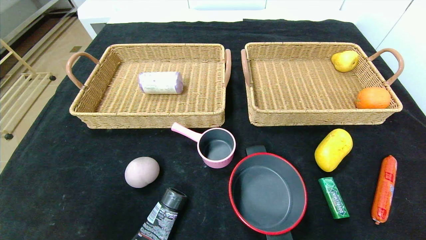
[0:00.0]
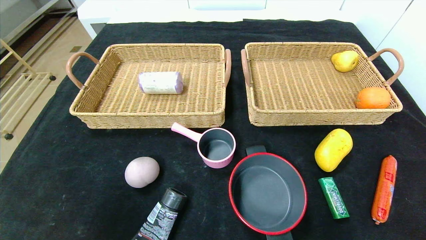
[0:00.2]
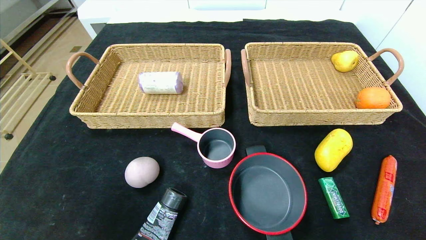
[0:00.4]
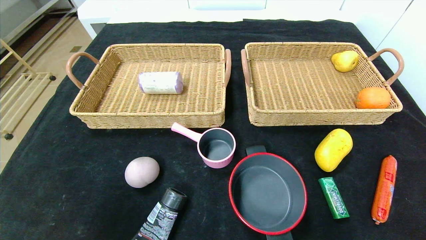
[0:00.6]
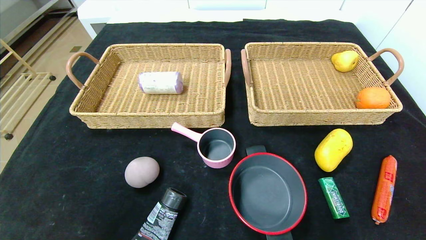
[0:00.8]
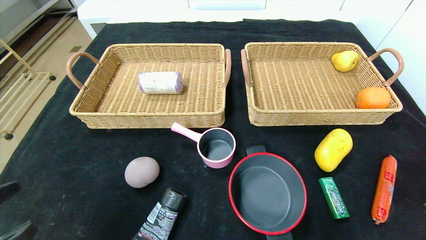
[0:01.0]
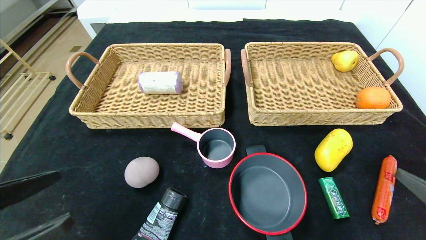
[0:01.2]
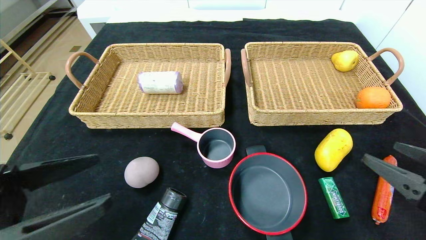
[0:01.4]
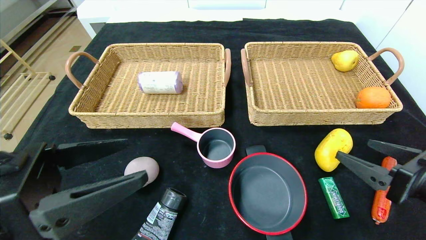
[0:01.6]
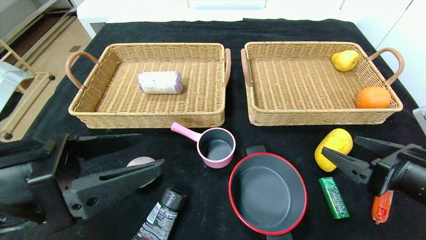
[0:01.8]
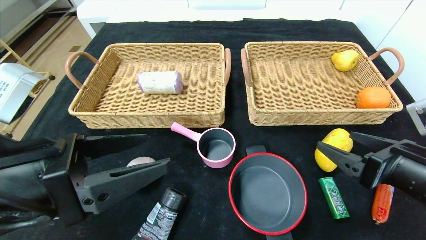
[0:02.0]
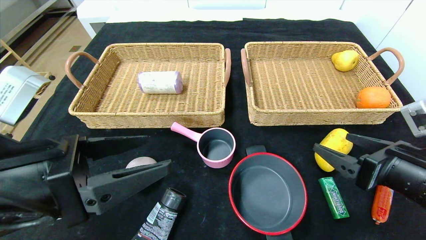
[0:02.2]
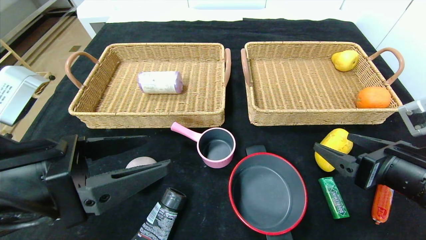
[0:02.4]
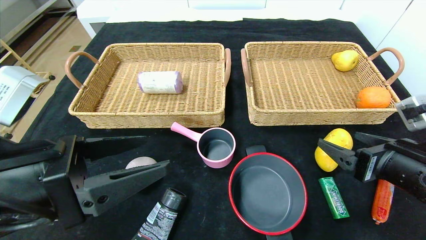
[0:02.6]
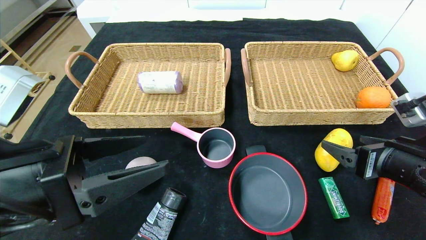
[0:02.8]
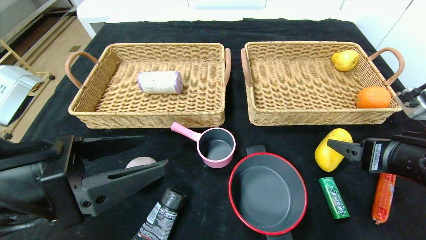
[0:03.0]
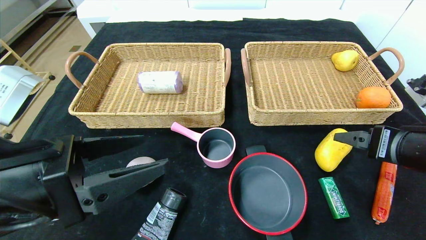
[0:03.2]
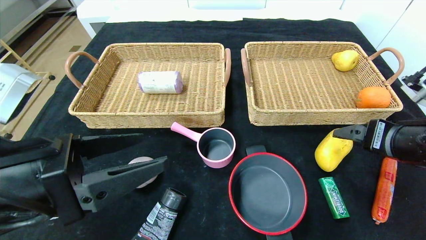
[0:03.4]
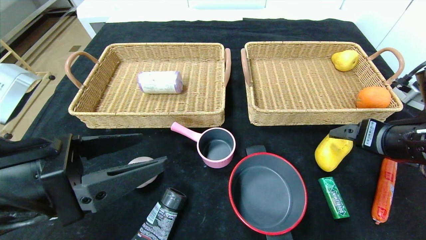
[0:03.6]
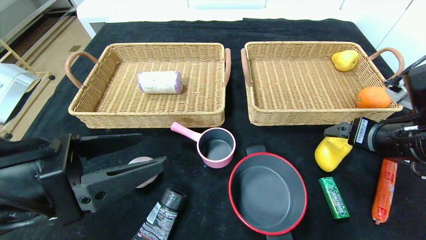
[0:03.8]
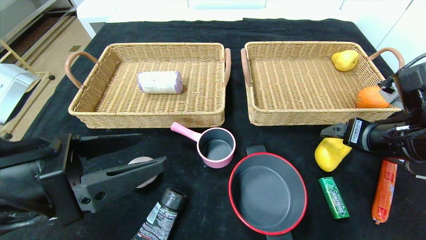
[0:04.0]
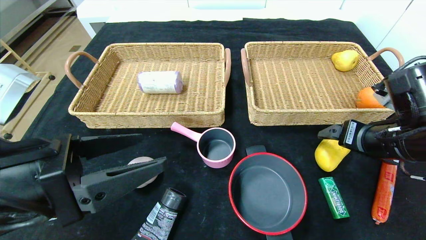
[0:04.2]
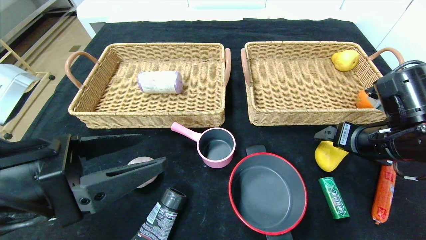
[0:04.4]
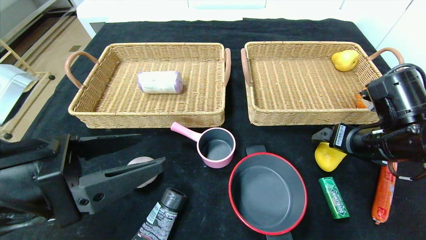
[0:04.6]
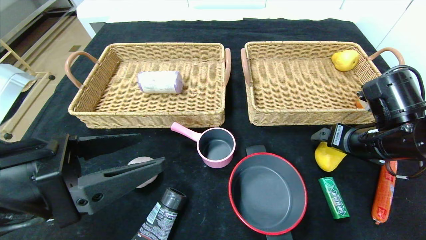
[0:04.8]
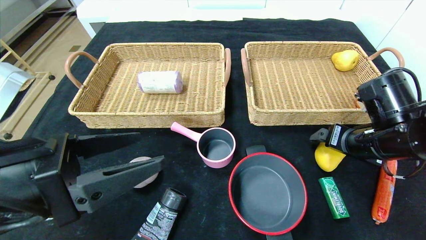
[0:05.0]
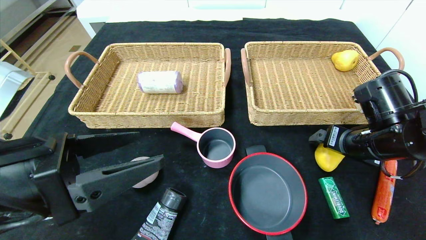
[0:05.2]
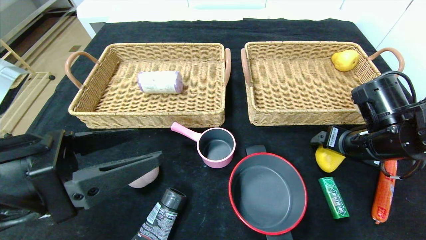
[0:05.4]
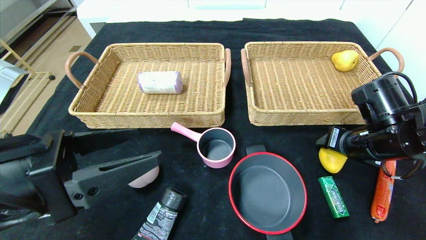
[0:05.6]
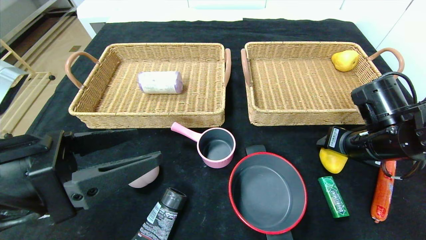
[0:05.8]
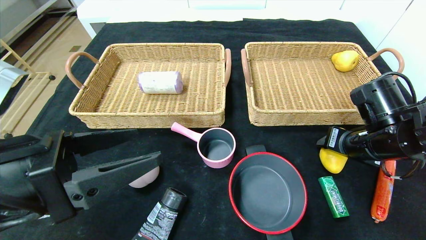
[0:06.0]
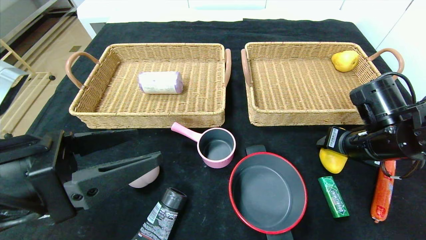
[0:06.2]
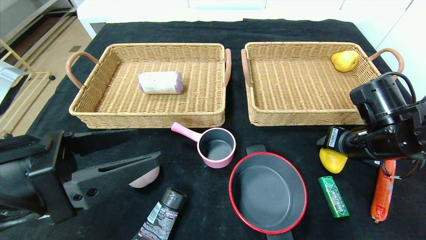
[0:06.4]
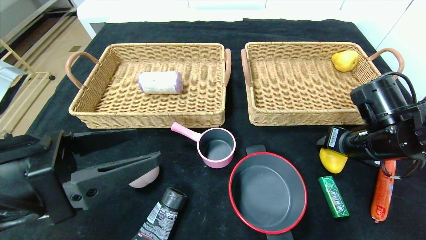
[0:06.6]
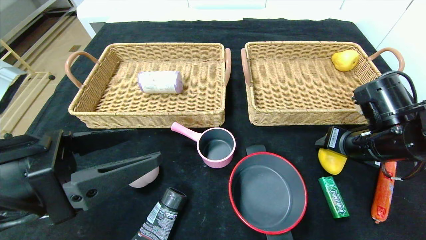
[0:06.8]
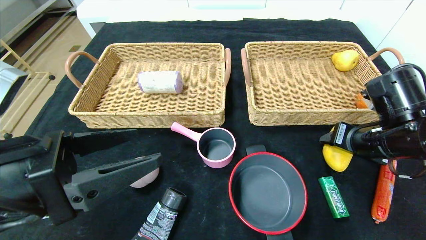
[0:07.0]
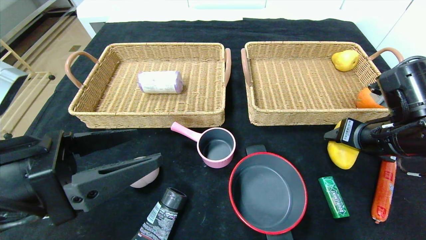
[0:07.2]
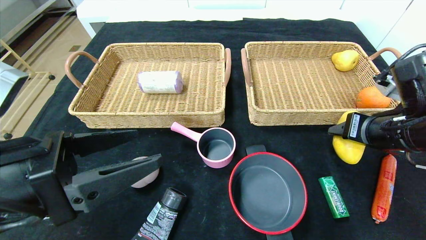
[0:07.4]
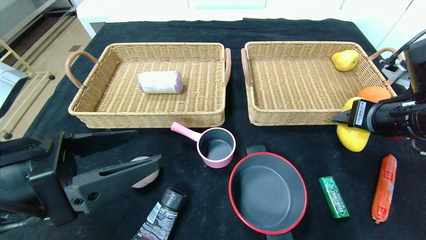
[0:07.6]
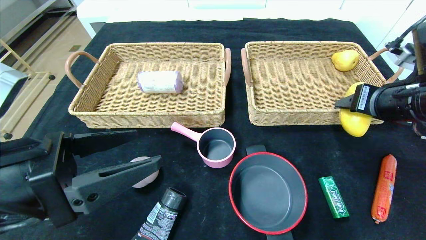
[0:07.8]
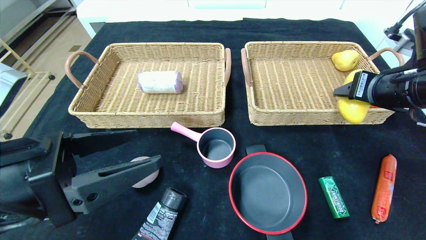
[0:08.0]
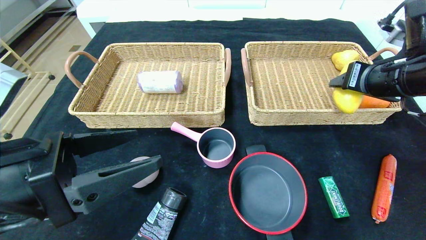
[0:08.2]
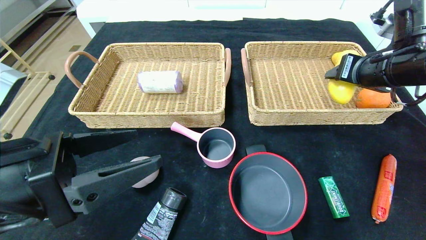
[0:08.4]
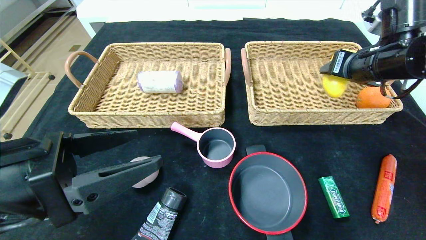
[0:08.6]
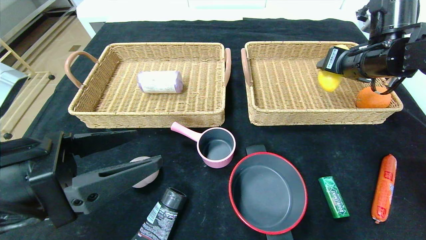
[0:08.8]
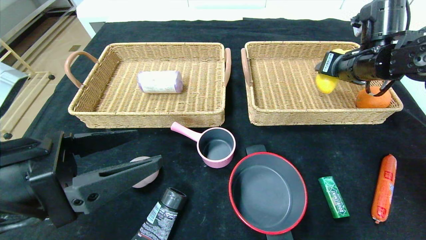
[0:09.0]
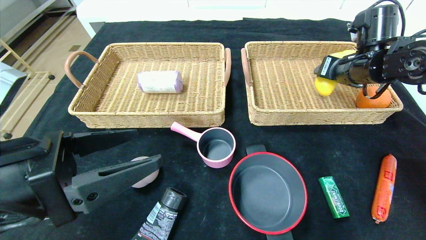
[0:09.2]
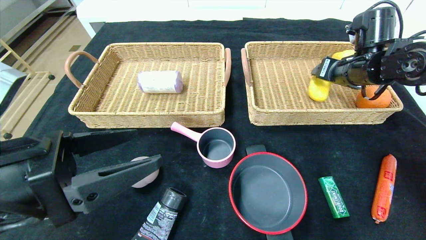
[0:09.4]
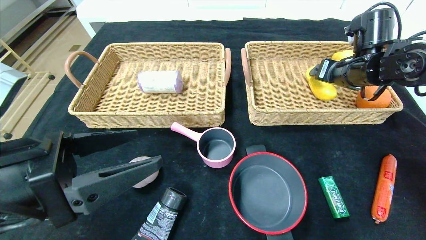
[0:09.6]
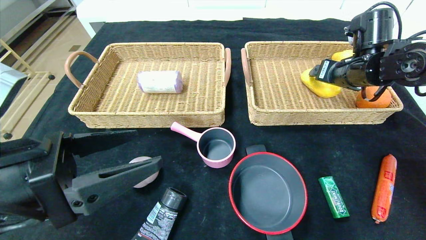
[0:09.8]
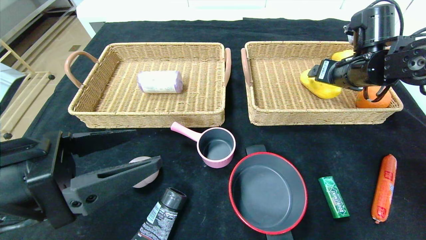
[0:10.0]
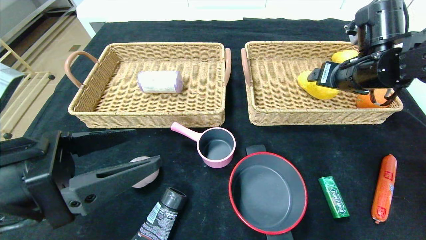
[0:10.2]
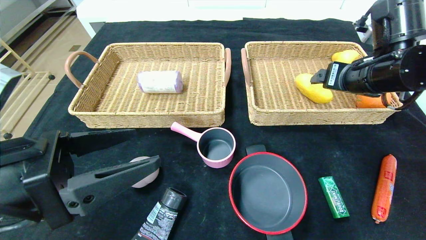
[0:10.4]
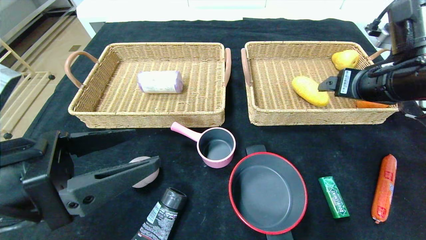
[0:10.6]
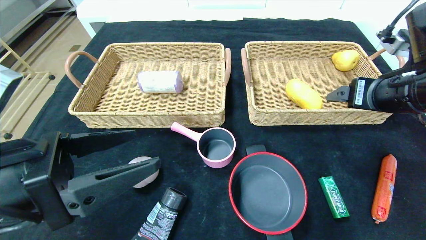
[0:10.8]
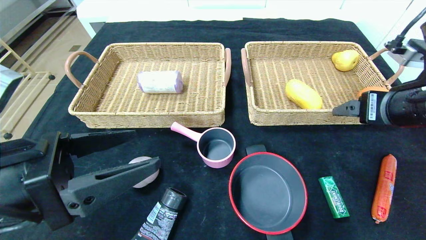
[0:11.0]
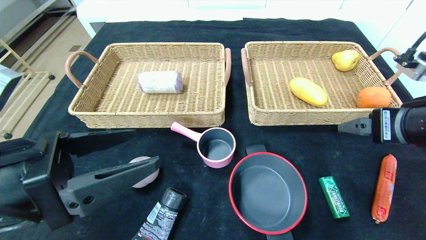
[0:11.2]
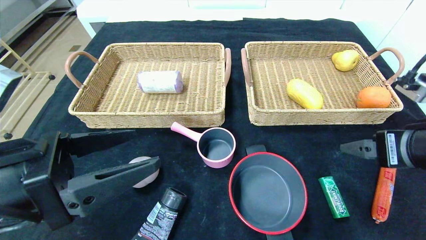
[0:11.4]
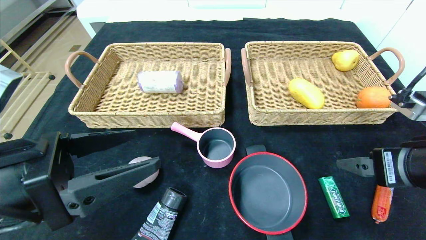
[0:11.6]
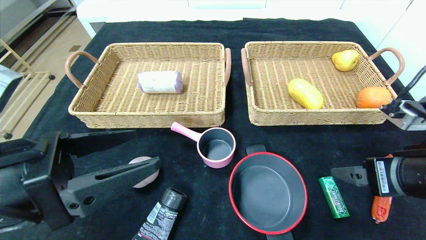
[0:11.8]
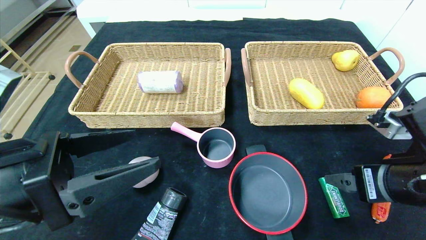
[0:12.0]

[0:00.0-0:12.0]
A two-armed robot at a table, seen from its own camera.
Step, 0:00.0 to 0:10.0: Grasp the mango and put it in the right basket.
0:00.0 to 0:01.6: The right gripper heads forward, covering about 15 cm. Meanwhile the left gripper goes some 15 cm forward, upward and to the right.
0:03.0 to 0:04.4: The right gripper travels forward by about 5 cm.
0:04.4 to 0:06.0: The right gripper closes up.
0:06.0 to 0:07.6: The right gripper goes some 5 cm upward.
0:07.6 to 0:09.0: The right gripper is displaced forward by about 15 cm.
0:09.0 to 0:10.4: The right gripper is displaced backward by about 5 cm, and opens its fingers.
0:10.4 to 0:12.0: The right gripper goes approximately 15 cm backward and downward.

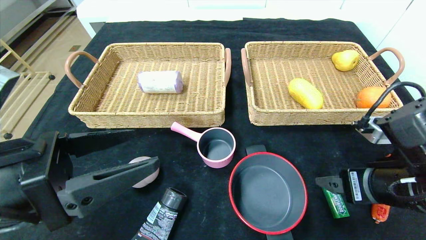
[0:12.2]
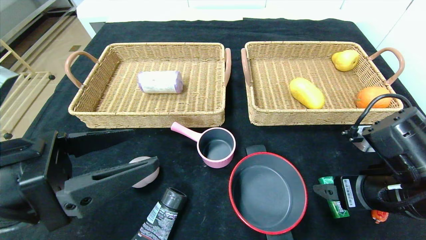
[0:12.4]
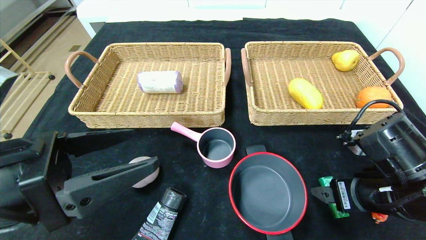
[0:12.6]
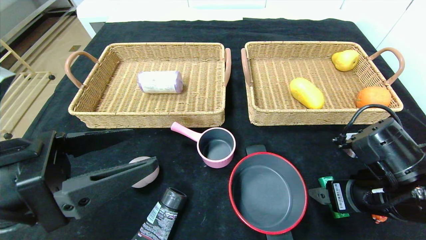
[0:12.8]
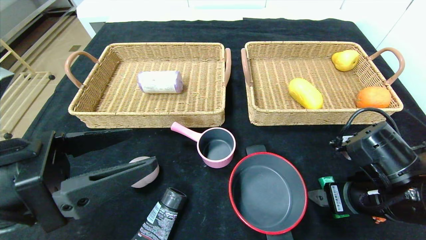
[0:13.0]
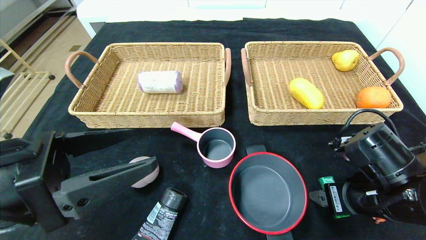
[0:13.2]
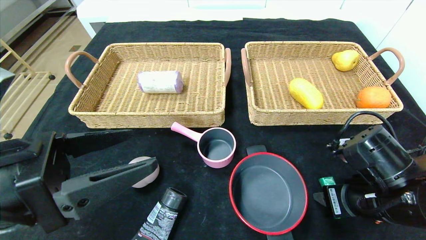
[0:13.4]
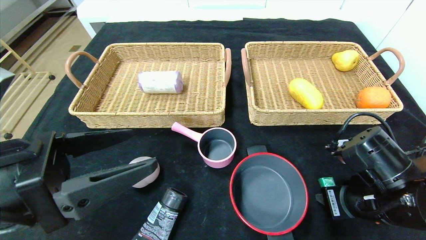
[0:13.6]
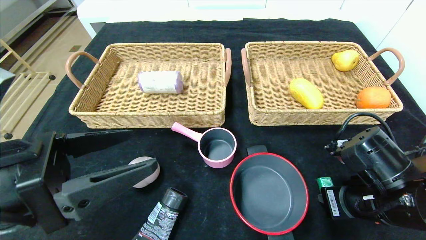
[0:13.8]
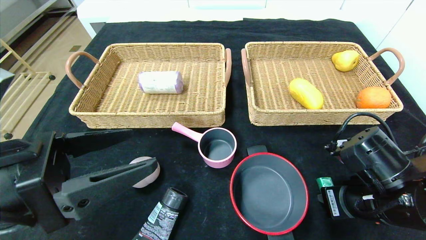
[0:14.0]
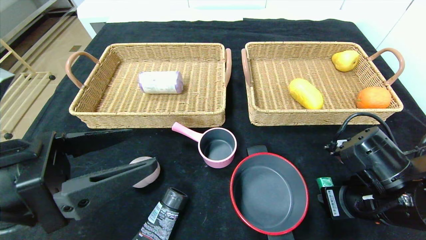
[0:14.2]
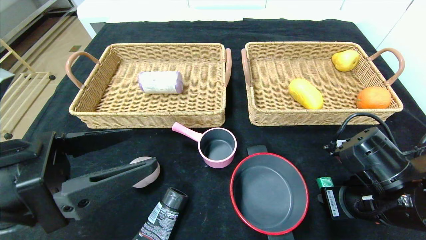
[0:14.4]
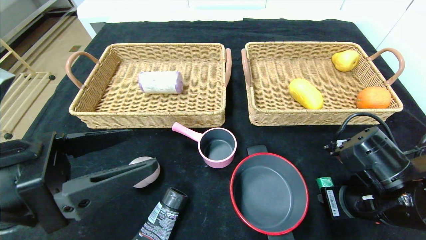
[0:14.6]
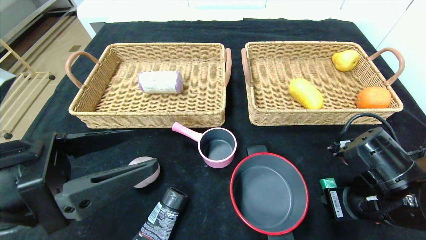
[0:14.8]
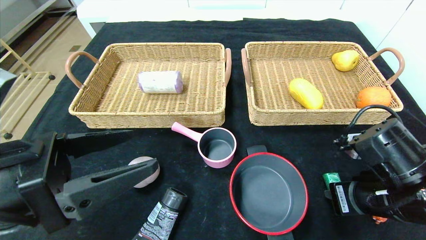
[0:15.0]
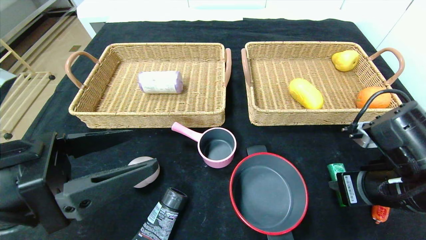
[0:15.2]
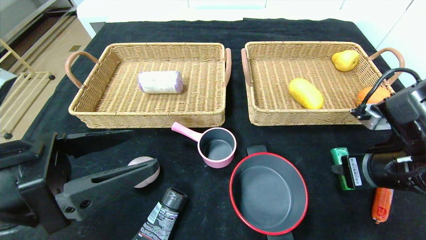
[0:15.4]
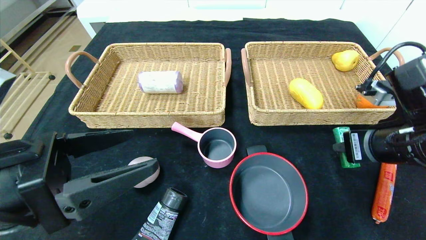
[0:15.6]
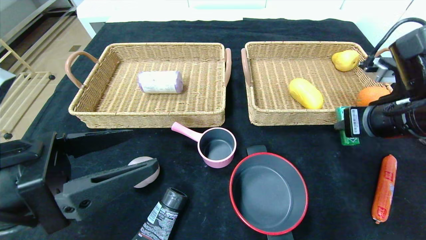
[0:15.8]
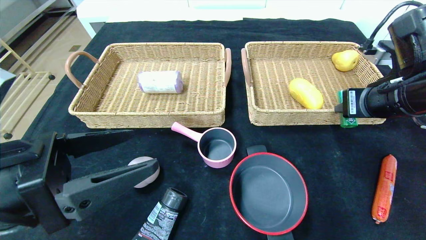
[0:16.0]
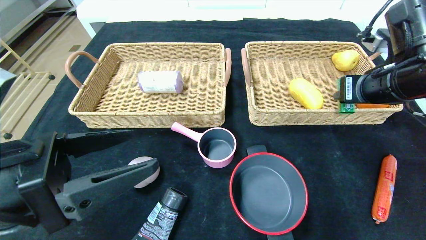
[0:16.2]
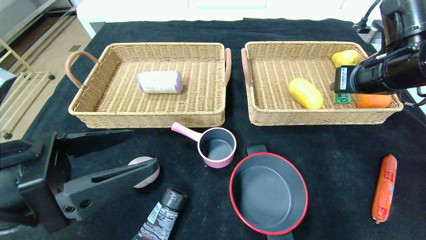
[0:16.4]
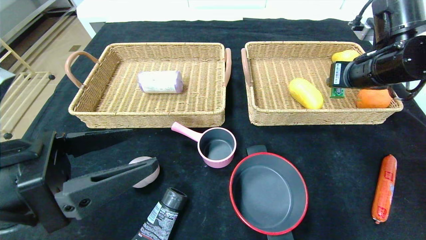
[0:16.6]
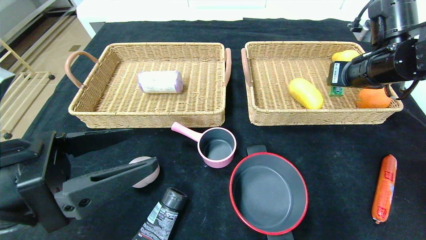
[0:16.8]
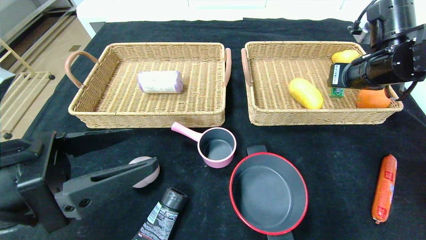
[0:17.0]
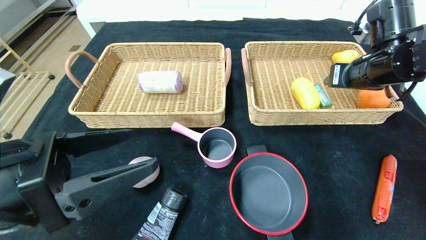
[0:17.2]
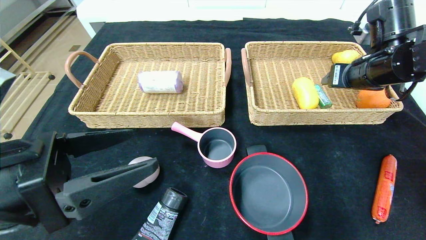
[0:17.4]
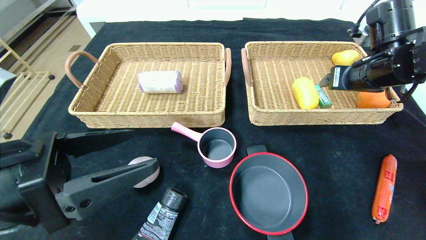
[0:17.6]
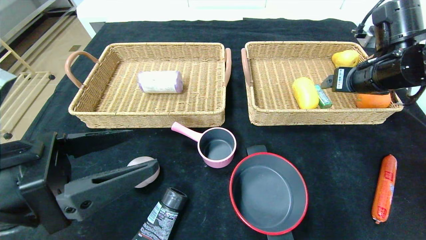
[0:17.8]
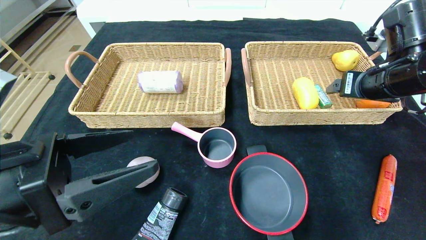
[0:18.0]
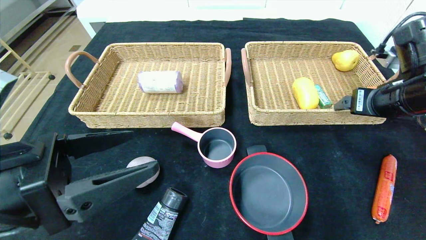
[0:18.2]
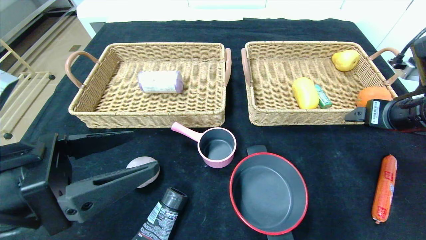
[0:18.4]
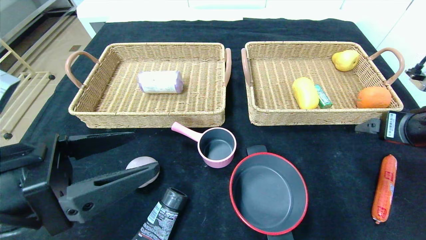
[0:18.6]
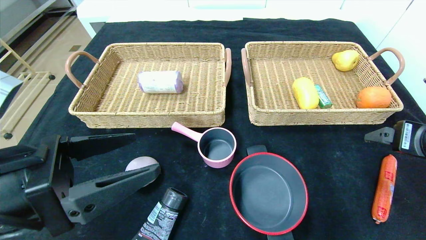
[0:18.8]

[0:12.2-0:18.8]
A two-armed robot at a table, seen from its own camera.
Step, 0:12.2 to 0:17.2: Grasp the green chewing gum and put it in the right basket.
0:12.2 to 0:13.8: The right gripper closes its fingers.
0:13.8 to 0:15.4: The right gripper heads upward, covering about 5 cm.
0:15.4 to 0:17.2: The right gripper moves forward and upward, approximately 15 cm.
0:17.2 to 0:18.8: The right gripper moves backward, about 15 cm, and opens up.
